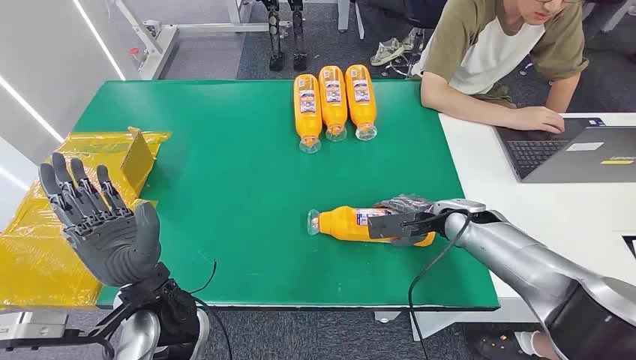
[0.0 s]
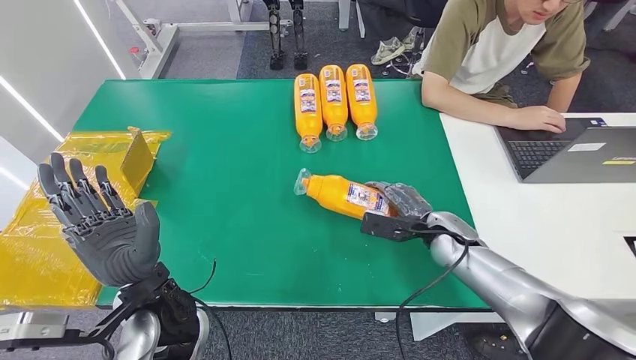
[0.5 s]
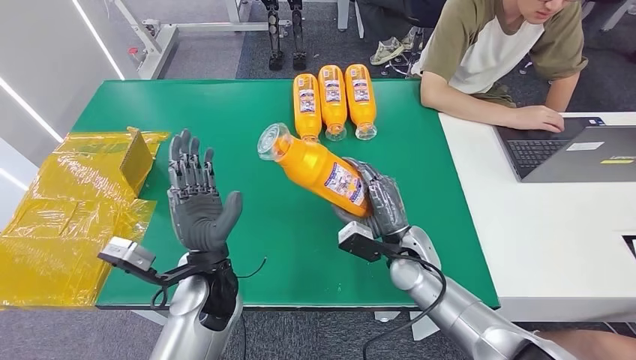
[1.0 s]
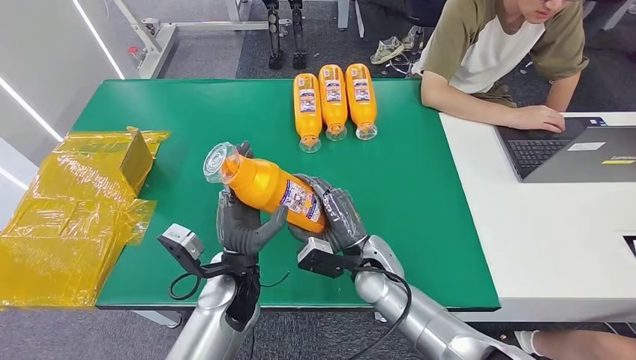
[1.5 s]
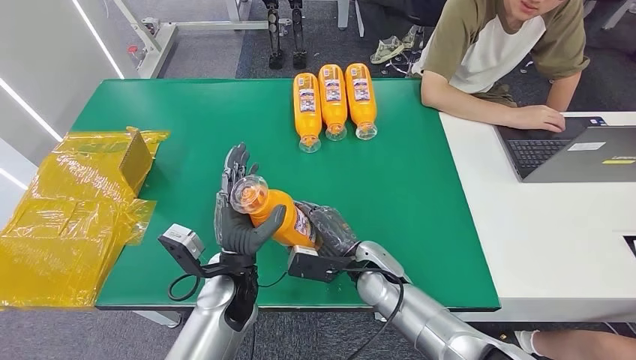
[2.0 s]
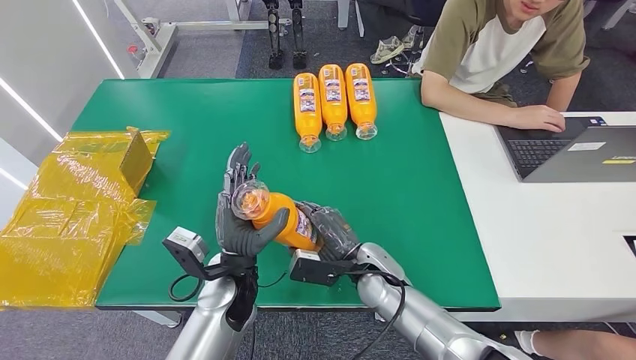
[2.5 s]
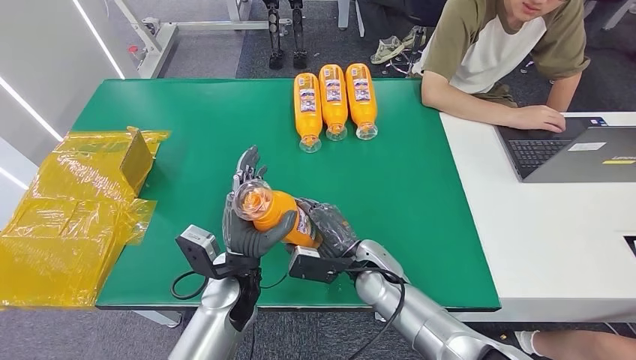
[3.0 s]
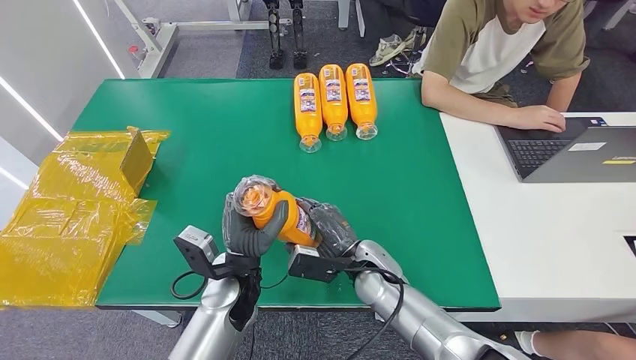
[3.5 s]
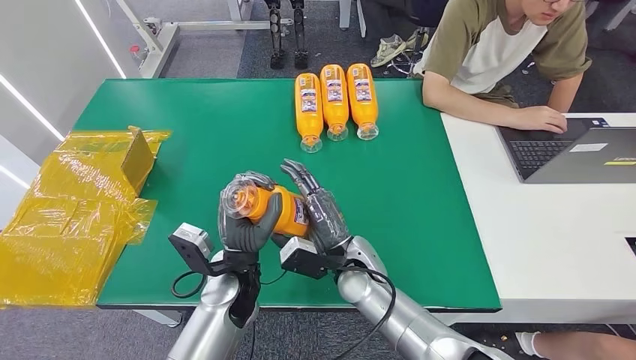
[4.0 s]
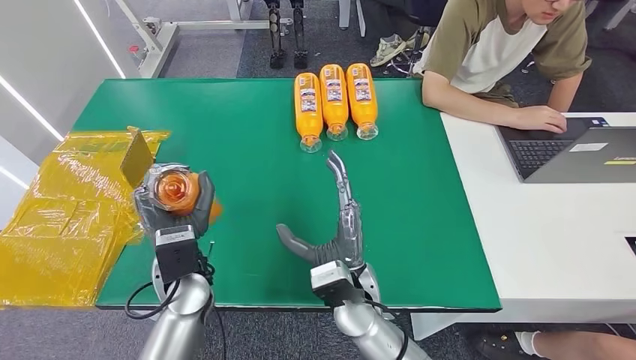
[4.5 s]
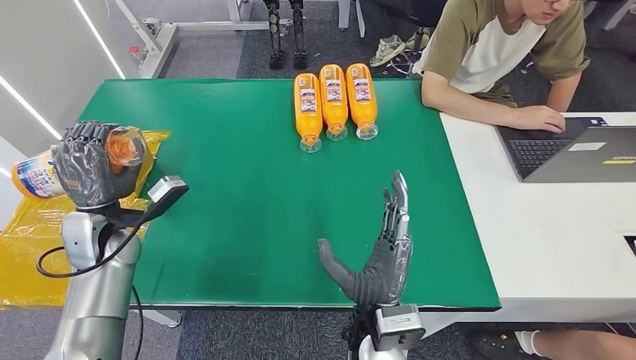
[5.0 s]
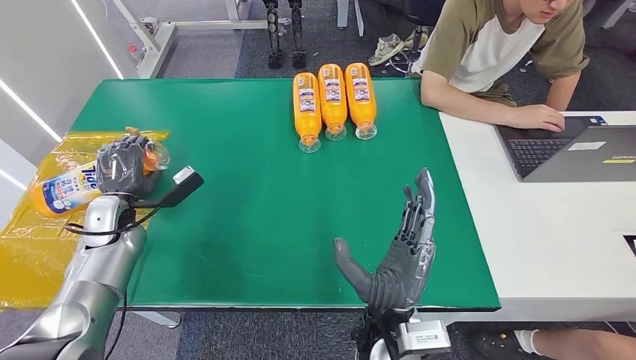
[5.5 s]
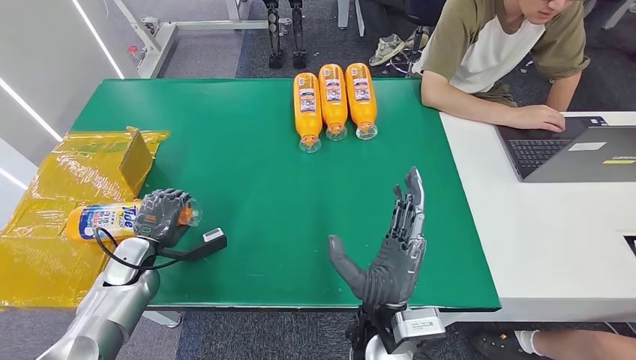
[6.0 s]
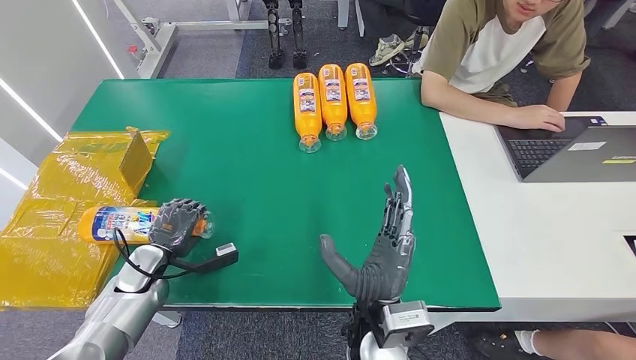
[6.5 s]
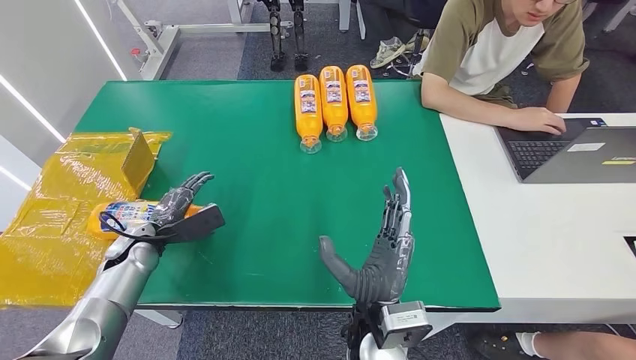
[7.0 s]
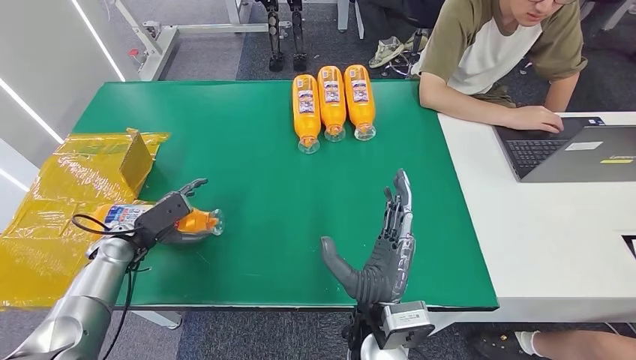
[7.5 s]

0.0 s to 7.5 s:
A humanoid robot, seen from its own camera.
Step, 0.0 to 2.5 s: Pick up the bottle from the table.
Step, 3.0 to 7.5 s: Turn the bottle to the front side.
5.5 to 7.5 s: The left hand shifts roughly 5 cm downward.
